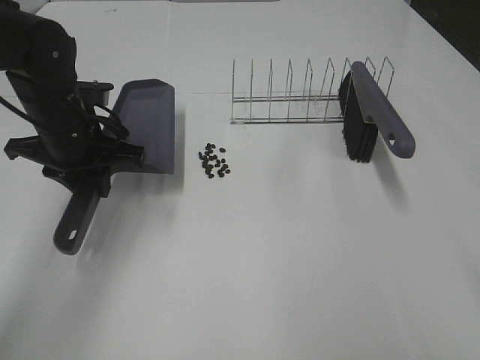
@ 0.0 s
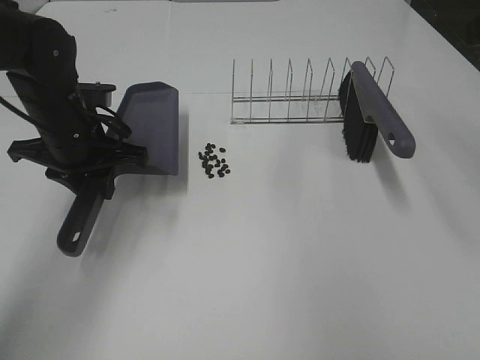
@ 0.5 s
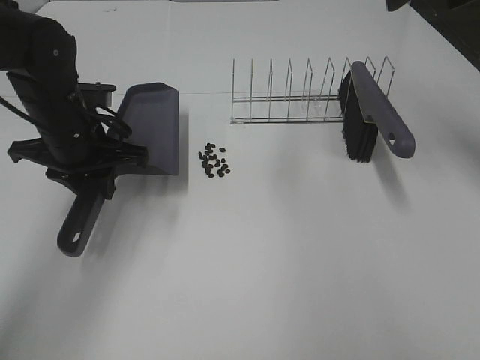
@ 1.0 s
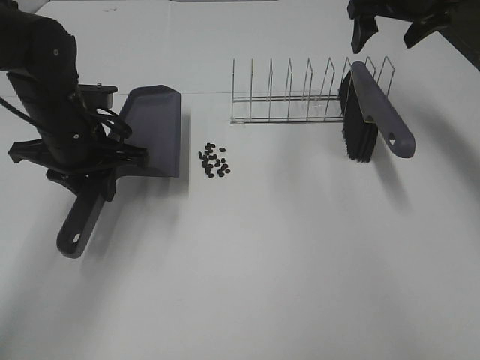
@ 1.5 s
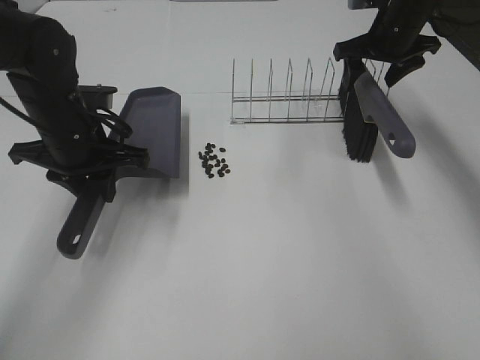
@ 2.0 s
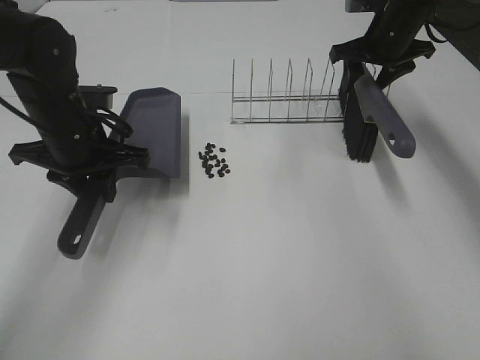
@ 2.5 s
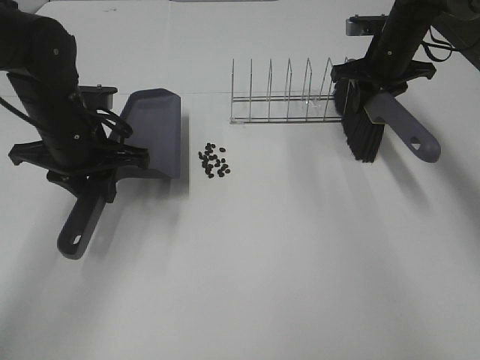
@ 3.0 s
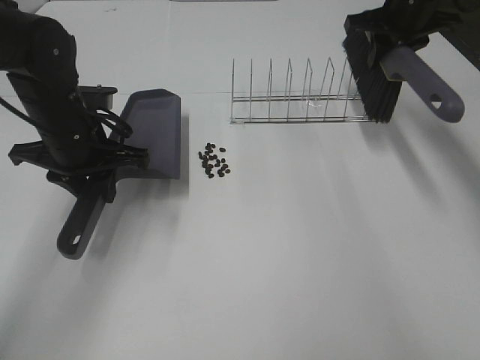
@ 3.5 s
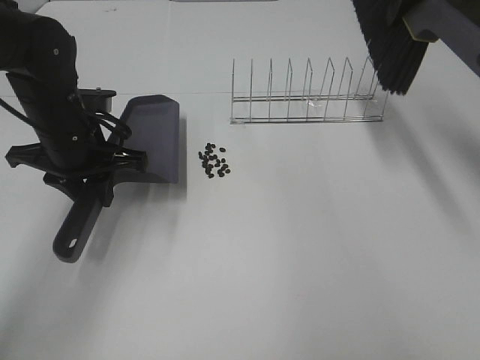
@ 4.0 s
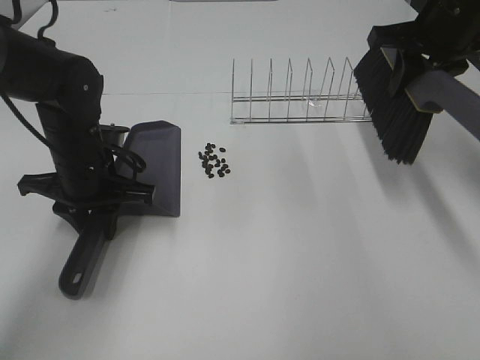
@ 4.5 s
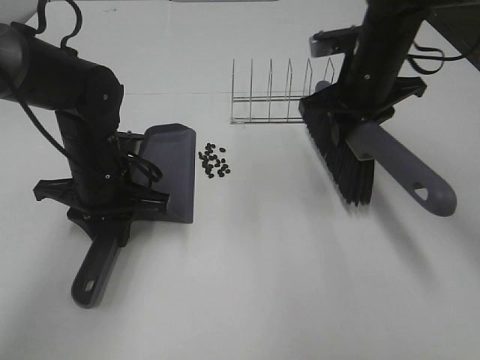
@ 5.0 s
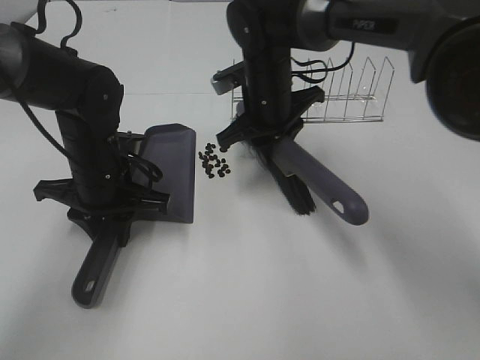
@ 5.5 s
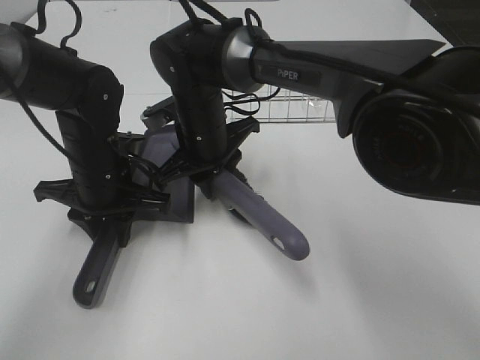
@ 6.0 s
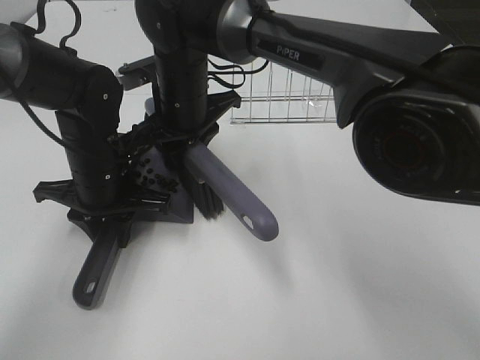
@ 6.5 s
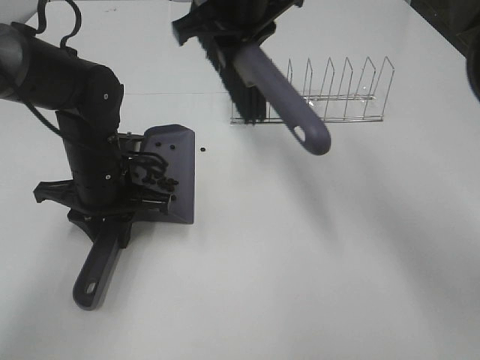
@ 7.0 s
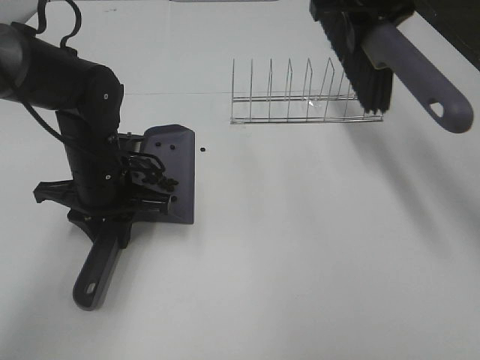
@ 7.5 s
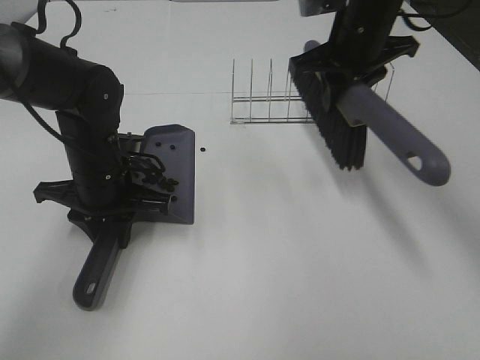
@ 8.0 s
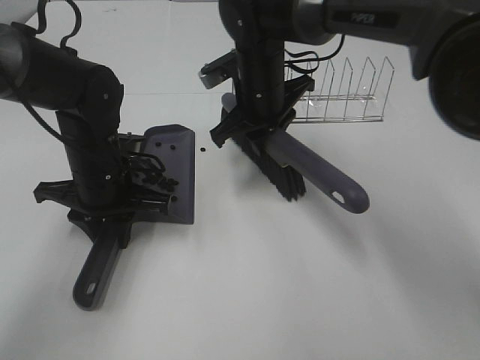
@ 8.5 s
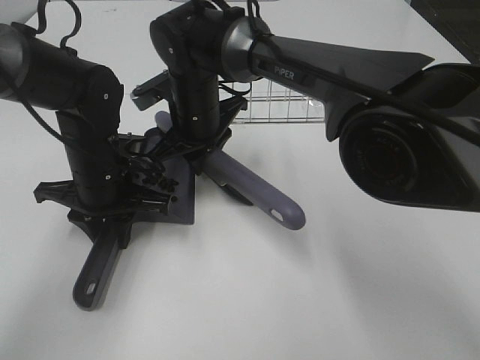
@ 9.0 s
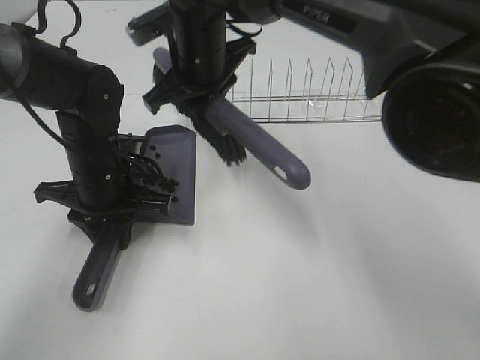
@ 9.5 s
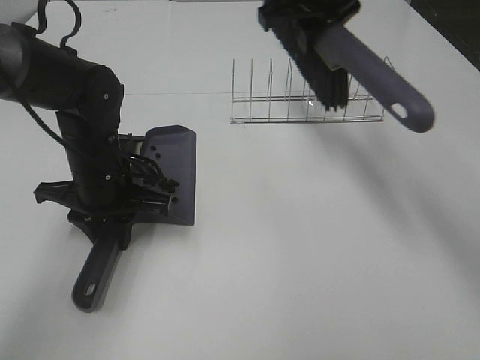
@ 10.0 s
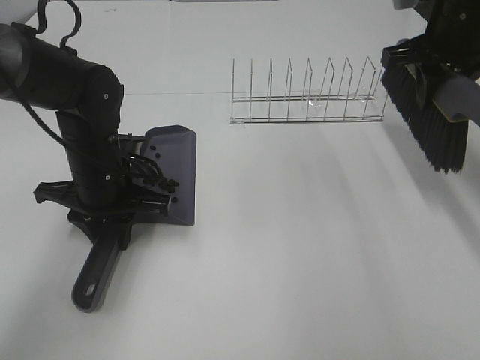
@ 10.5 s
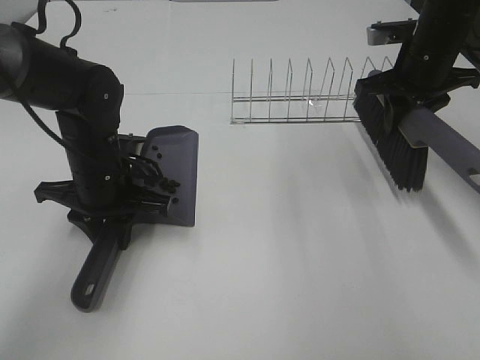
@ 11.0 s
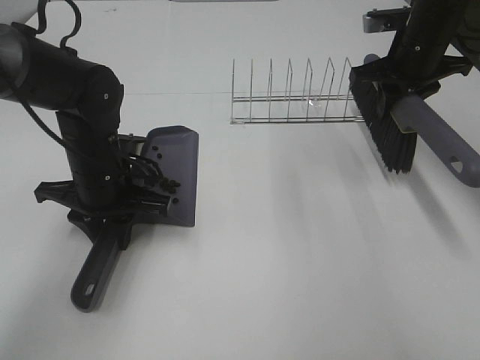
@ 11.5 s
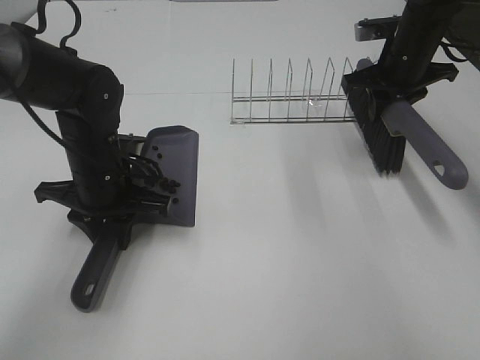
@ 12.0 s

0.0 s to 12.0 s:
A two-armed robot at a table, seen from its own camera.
Task of the whole recording: Sweep Coffee Bean.
Step, 0.0 to 2.5 s: Right hand:grab the broom.
Step, 3.0 to 9.0 s: Right hand:sweep the coffee beans into the dustpan.
0.0 to 2.0 s: The right gripper shifts about 40 cm forward.
2.0 to 4.0 s: The right gripper moves upward and backward, some 15 cm, and closes up.
4.0 to 6.0 s: The right gripper moves to the left and downward, roughly 35 cm. The left gripper shifts by some 5 cm.
6.0 to 8.0 s: The right gripper goes about 20 cm to the right and upward.
8.0 to 10.0 s: The right gripper heads upward, covering roughly 5 cm, and reaches approximately 20 cm to the left, then returns.
10.0 to 12.0 s: The right gripper travels to the right and downward by approximately 15 cm.

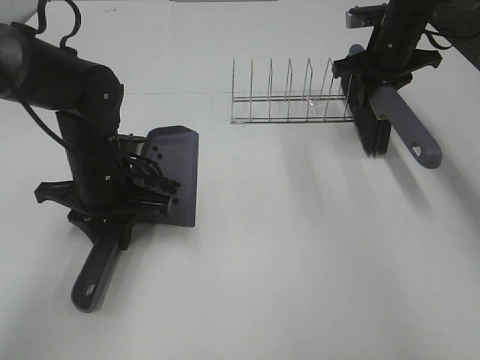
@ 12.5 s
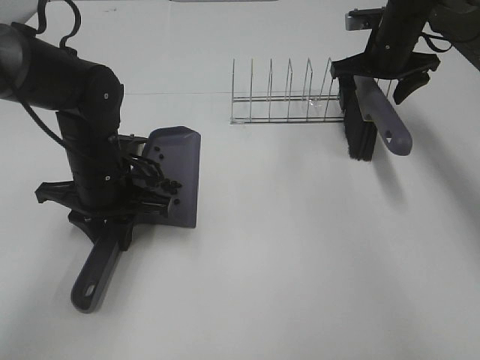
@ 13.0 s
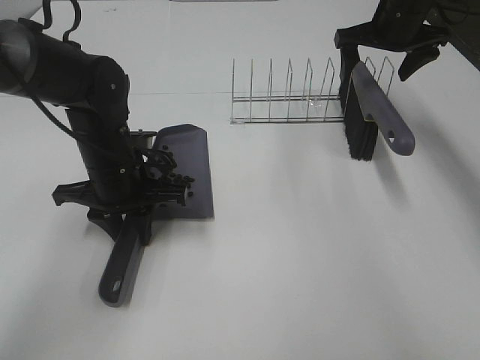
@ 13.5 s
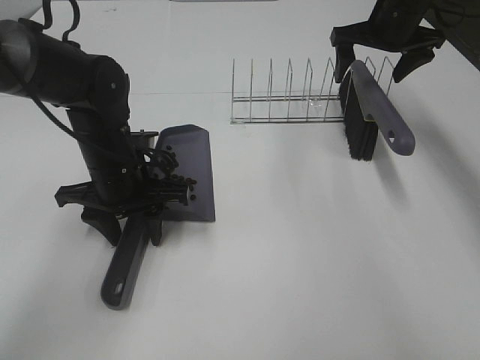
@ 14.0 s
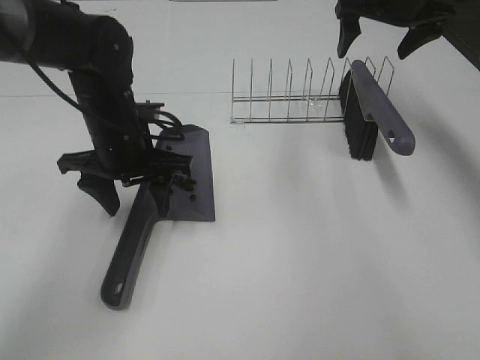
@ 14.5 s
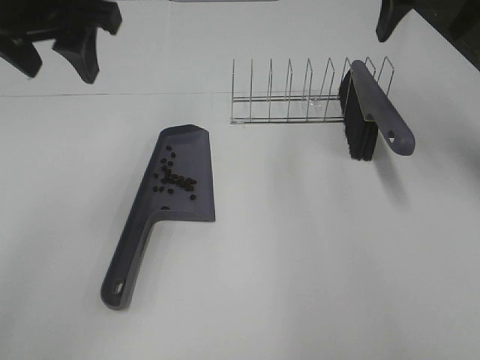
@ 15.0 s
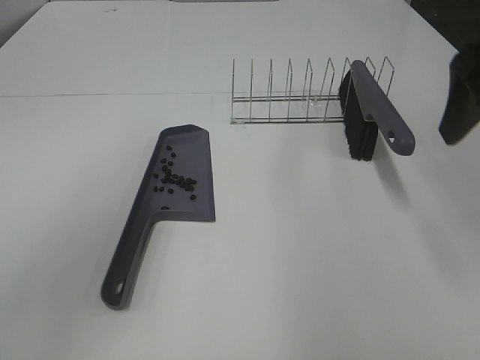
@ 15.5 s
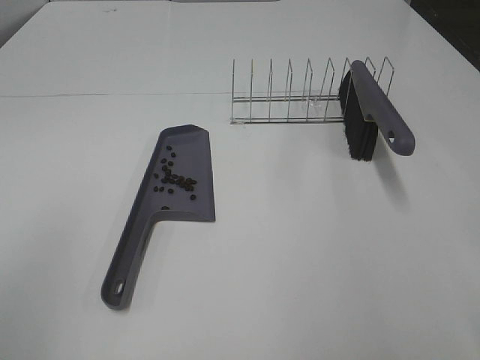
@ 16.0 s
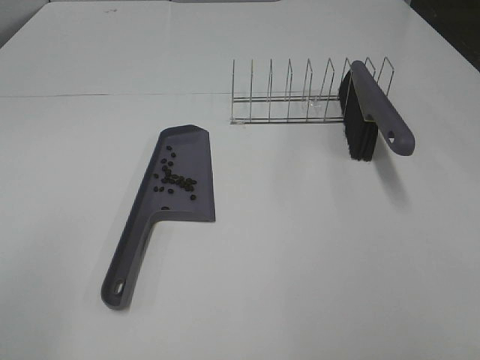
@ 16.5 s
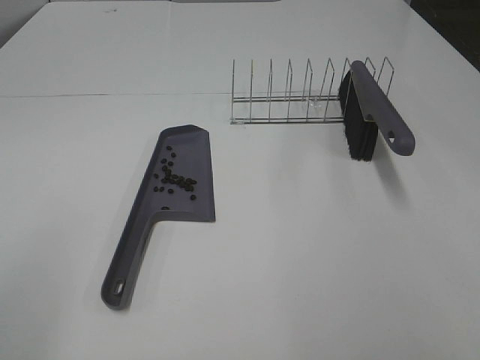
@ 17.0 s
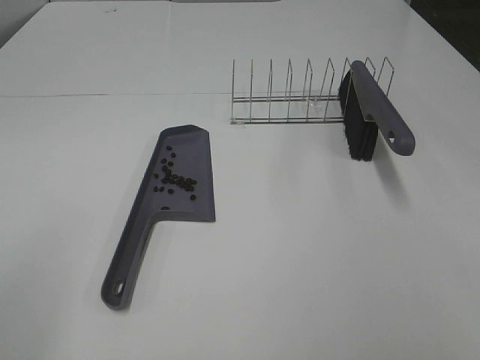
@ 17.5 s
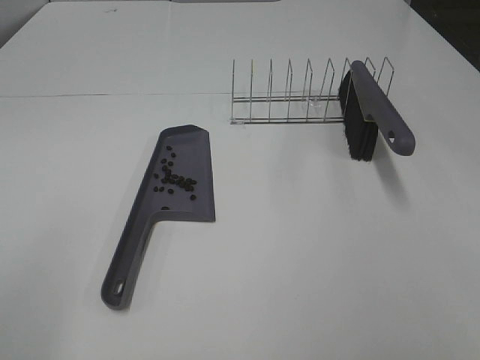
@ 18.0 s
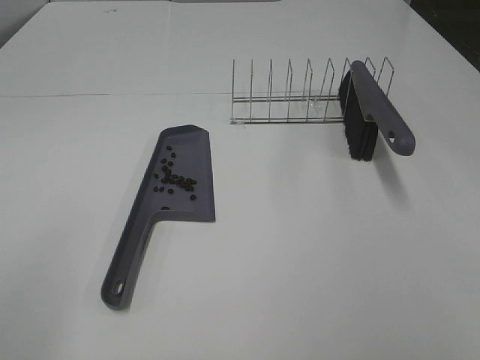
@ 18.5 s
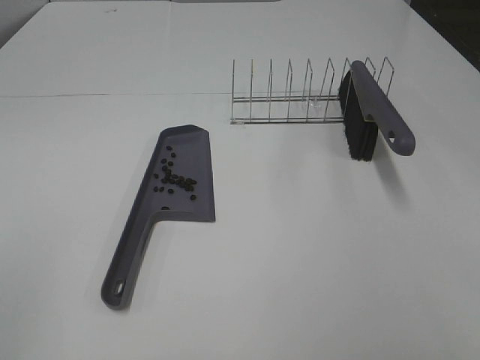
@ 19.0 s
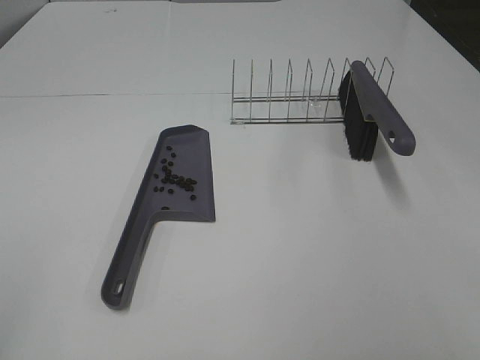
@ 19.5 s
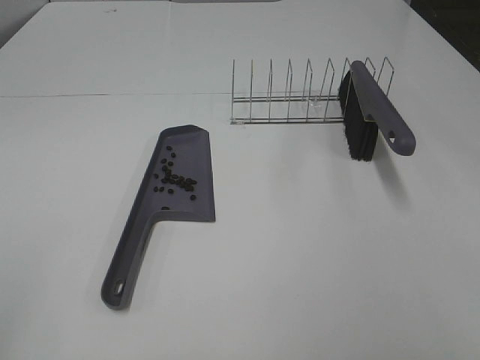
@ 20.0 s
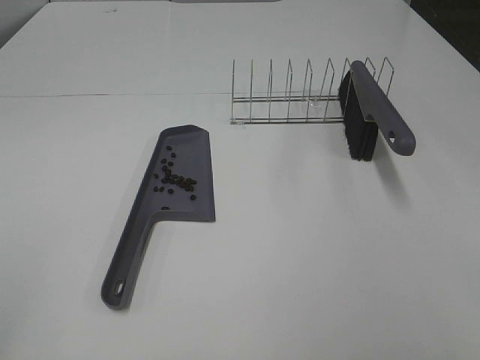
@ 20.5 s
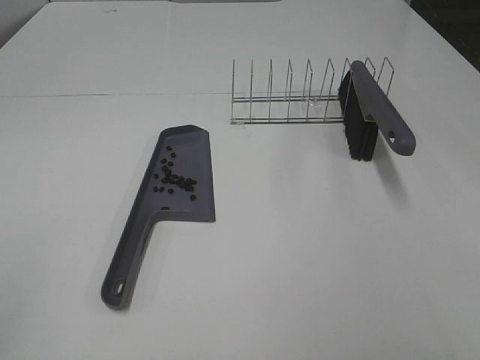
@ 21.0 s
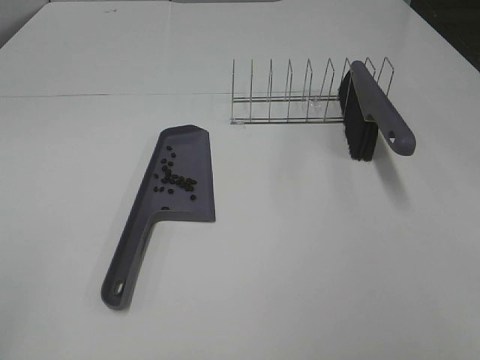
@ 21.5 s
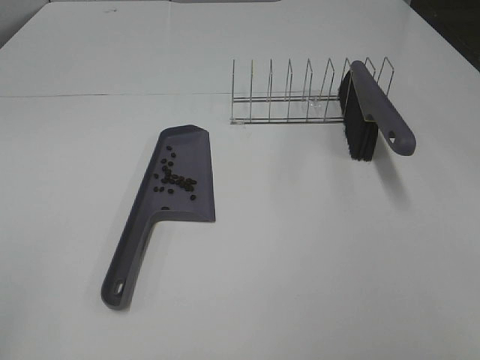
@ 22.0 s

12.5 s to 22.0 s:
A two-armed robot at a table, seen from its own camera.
Task of the whole recording: Sweep Coffee Bean.
Step, 13.5 to 14.0 s: Left hand:place the dustpan on the table.
12.5 to 14.5 s: The right gripper moves upward, approximately 10 cm, and opens up. The left gripper goes some 5 cm upward, and opens.
14.5 to 16.5 s: The left gripper is displaced backward and to the left by some 35 cm. Meanwhile the right gripper moves backward, about 50 cm.
20.0 to 22.0 s: Both grippers stay put.

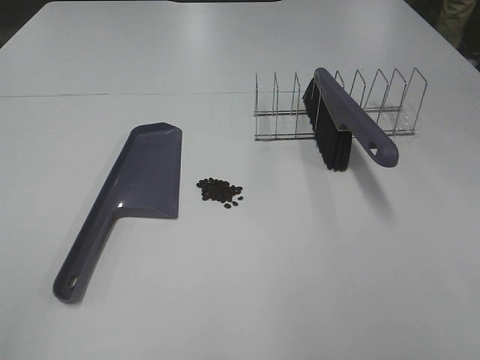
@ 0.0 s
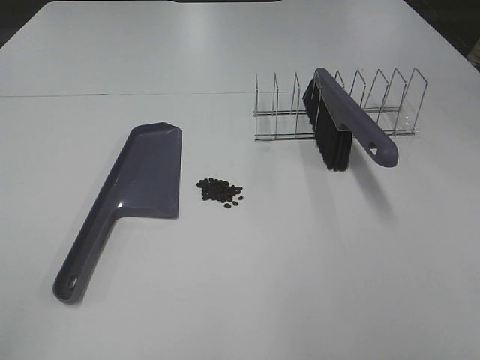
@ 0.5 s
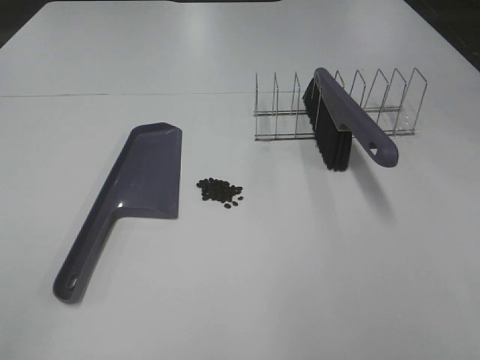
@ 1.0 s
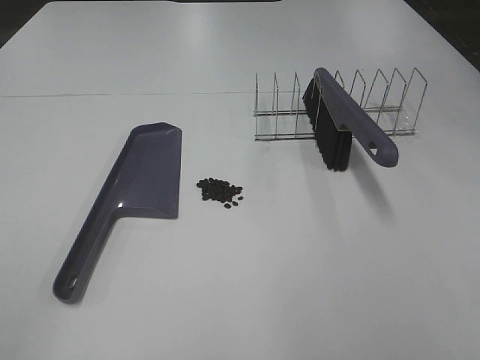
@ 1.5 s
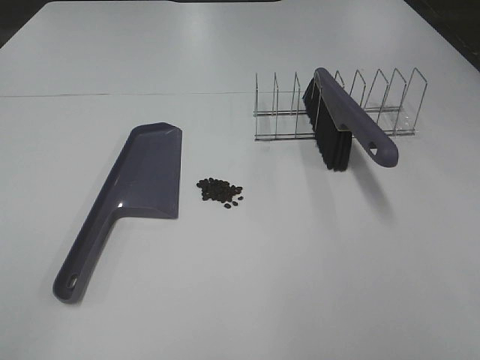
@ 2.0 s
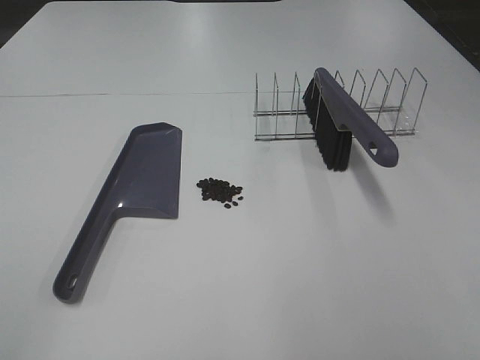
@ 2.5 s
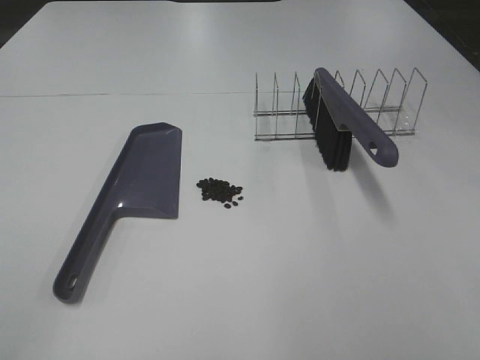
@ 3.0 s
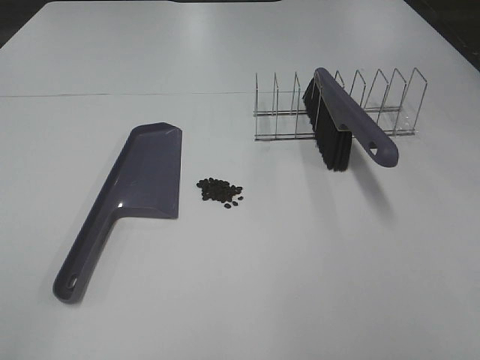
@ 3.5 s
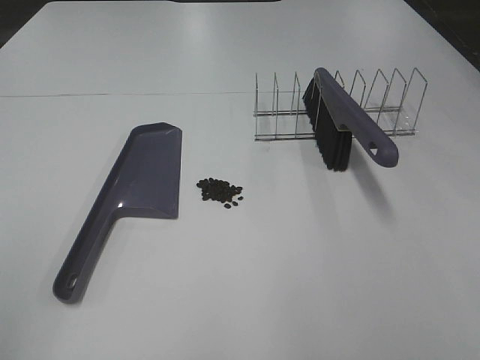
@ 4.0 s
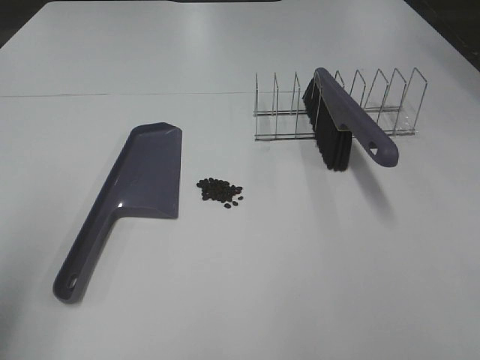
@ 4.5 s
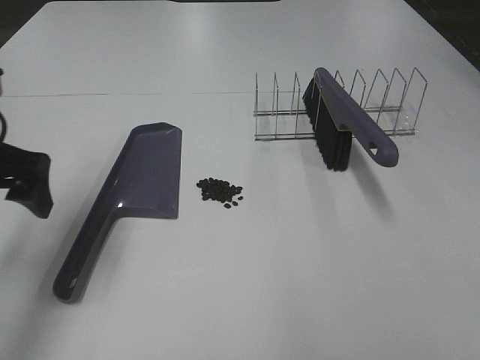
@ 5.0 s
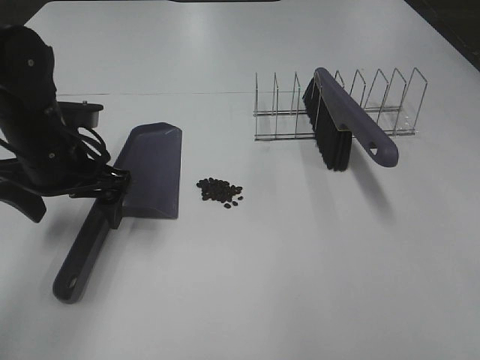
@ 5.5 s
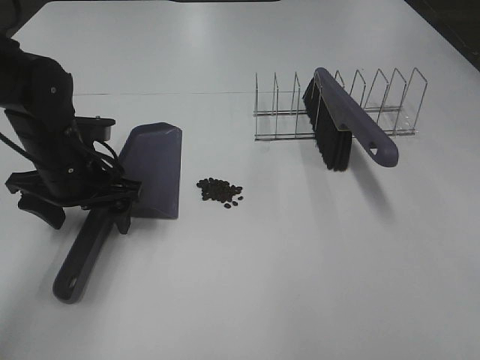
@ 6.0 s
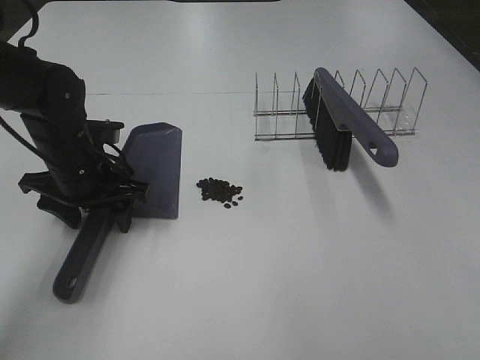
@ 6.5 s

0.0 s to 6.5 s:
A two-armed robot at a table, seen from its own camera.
Task of the whole recording: Sweep Coffee Bean.
0.0 to 2.0 s: The two grippers keep their place.
2.0 to 4.5 s: The left gripper moves forward, approximately 15 cm.
4.5 to 6.5 s: The left gripper moves forward, downward and to the right, about 30 cm, and closes up.
